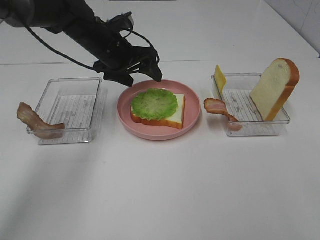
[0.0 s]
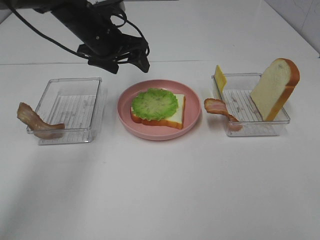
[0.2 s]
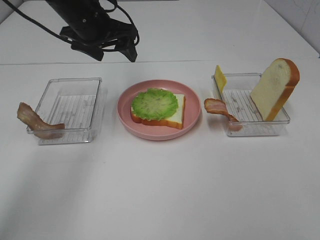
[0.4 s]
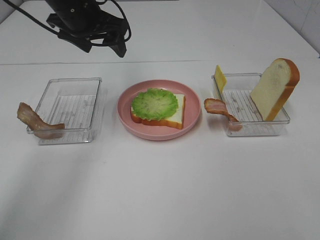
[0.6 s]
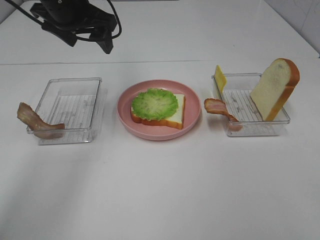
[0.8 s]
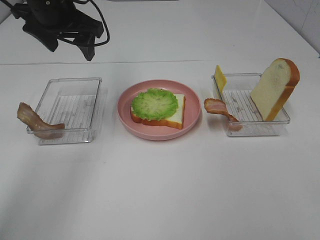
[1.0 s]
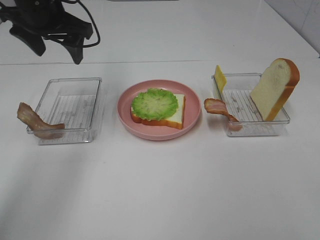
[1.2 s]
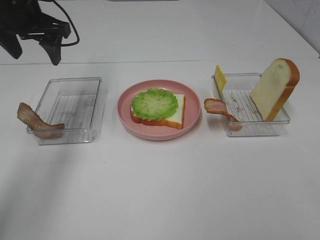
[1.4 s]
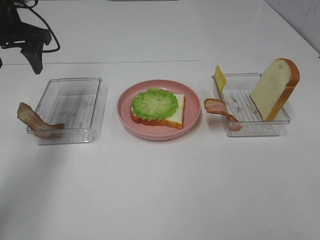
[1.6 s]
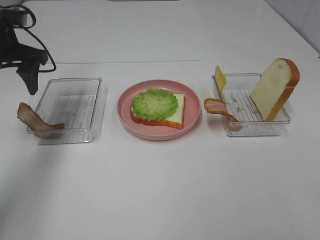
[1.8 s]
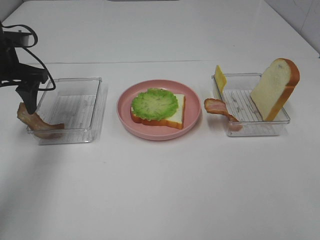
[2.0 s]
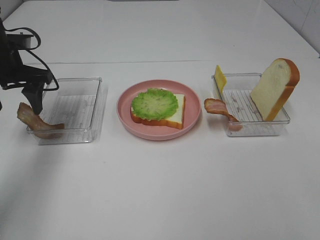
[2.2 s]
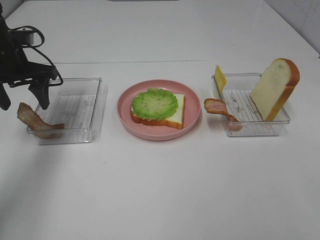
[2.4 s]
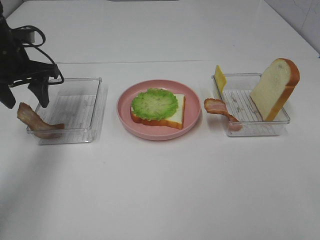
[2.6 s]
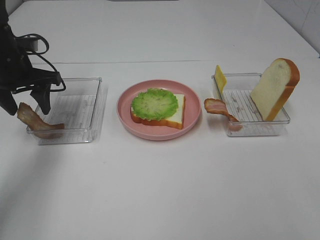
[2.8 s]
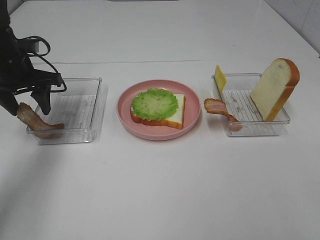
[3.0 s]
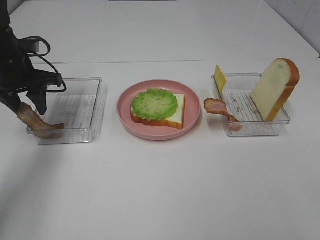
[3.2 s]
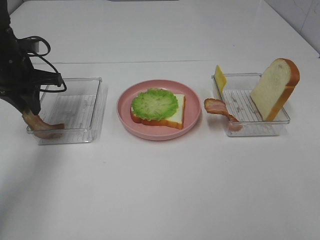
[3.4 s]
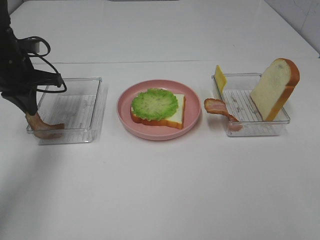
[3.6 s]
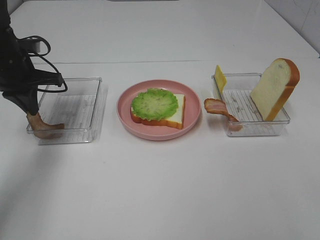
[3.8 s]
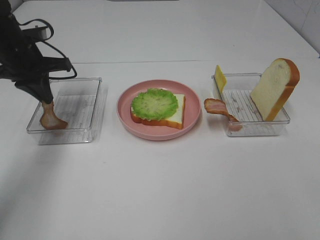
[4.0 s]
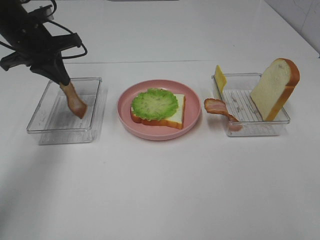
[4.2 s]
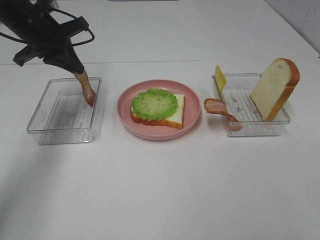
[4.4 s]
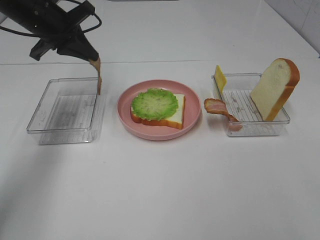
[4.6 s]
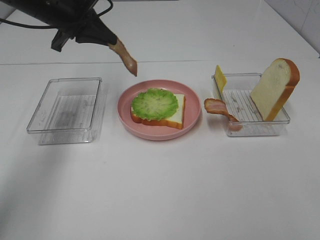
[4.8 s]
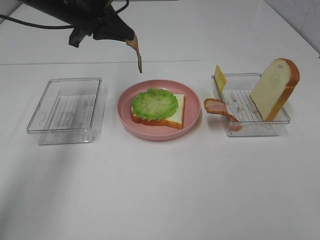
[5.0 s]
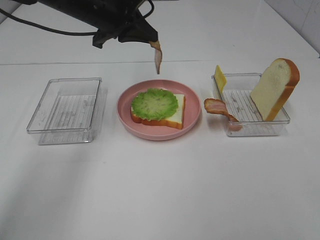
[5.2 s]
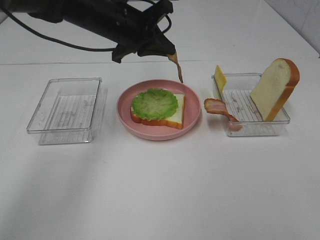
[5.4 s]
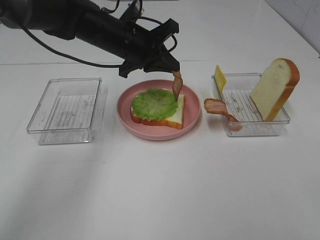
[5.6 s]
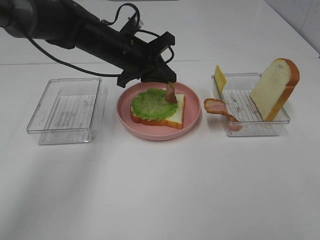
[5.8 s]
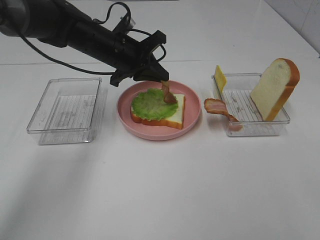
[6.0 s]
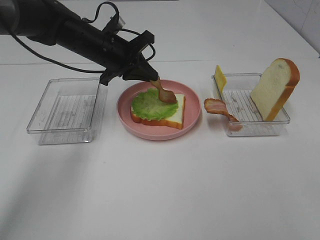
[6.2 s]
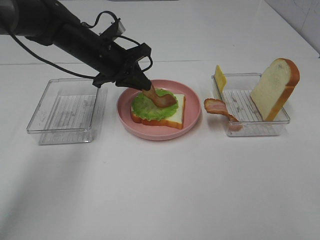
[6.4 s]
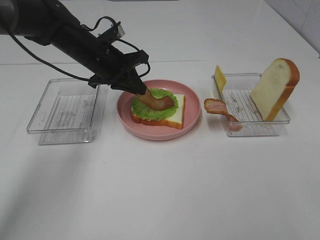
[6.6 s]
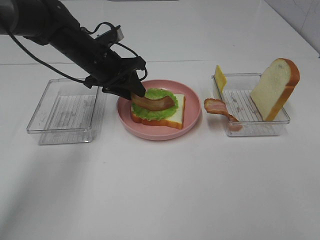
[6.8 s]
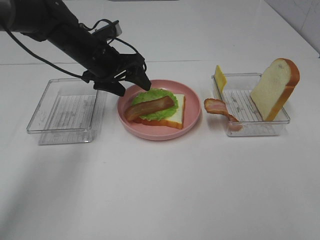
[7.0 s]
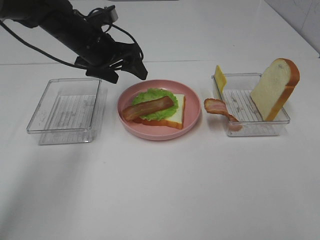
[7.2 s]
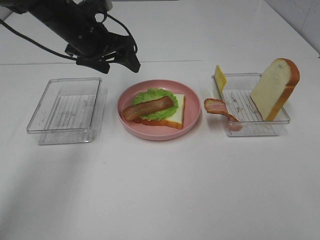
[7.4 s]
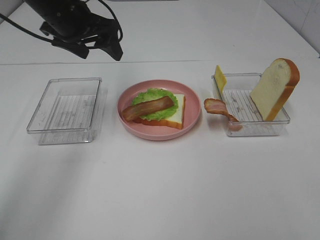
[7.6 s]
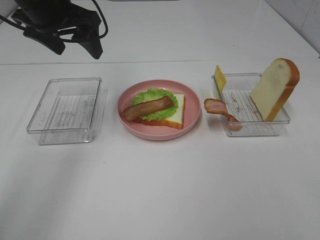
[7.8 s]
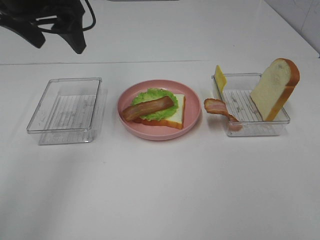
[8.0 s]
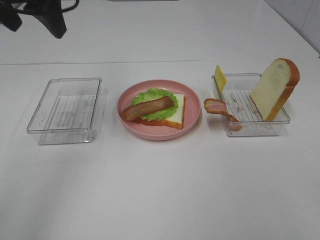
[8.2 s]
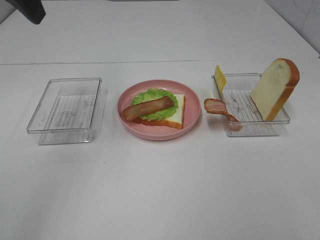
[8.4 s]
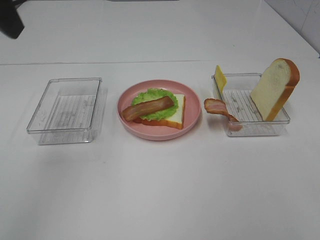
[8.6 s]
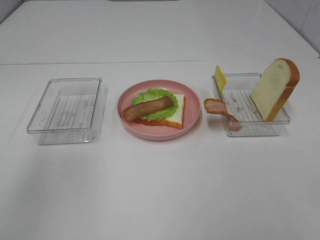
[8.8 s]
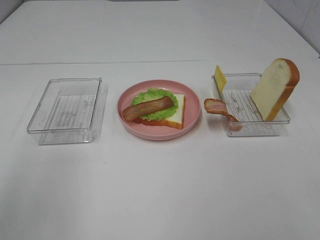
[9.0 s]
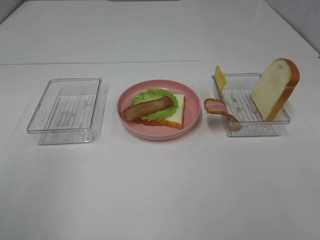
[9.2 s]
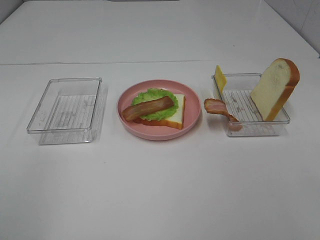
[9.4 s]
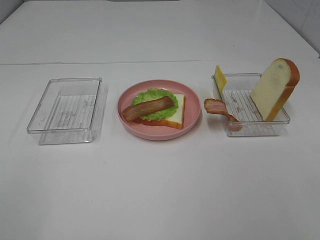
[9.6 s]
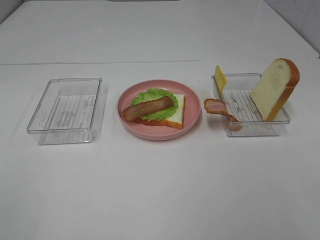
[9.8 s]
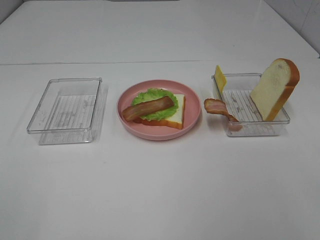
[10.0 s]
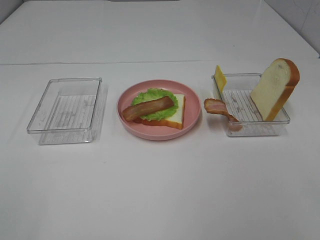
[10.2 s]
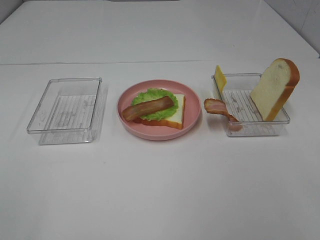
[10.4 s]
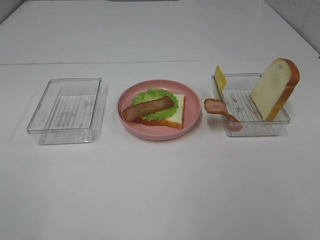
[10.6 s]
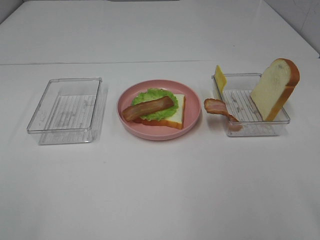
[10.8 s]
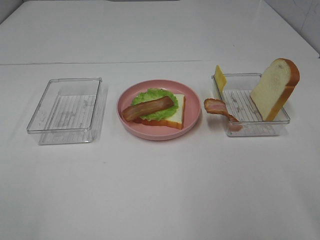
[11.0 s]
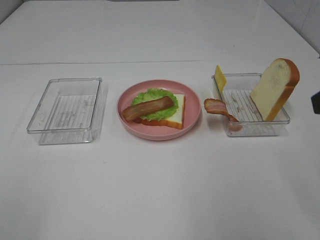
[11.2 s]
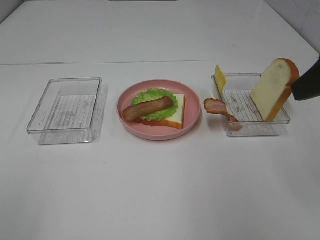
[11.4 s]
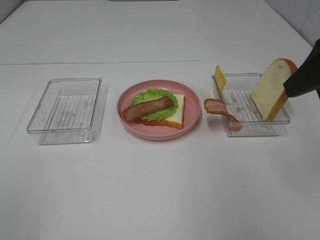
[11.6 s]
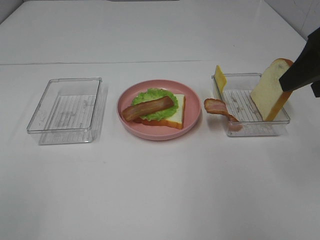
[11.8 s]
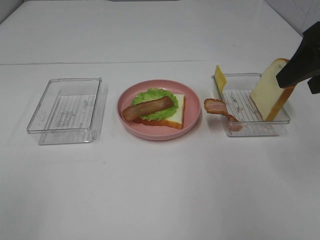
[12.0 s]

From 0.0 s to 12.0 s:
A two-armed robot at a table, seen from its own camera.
Task of the whole recording: Make sandwiches.
Step, from 0.2 s to 3.8 s: Left hand:grab the bacon.
Step, from 4.0 s to 7.0 s: Left hand:place bacon on lettuce slice.
From 0.0 s to 1.6 s: The left gripper moves to the left and upward, some 15 cm.
From 1.6 s to 3.0 s: The left gripper goes approximately 10 cm downward.
From 3.0 s to 4.4 s: The left gripper heads upward, covering approximately 5 cm, and closes up.
From 4.4 s to 6.0 s: The left gripper shifts roughly 15 cm to the right and downward.
From 6.0 s to 7.6 s: The left gripper is displaced upward and to the left by roughly 10 cm, and opens.
From 7.6 s to 9.0 s: The left gripper heads backward, covering some 25 cm.
From 10.4 s to 12.0 s: The right gripper heads forward, covering approximately 25 cm.

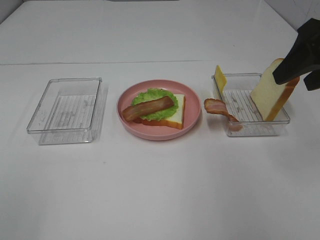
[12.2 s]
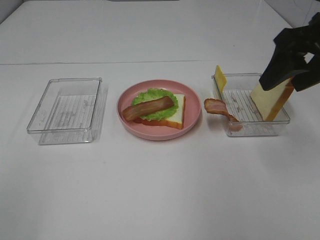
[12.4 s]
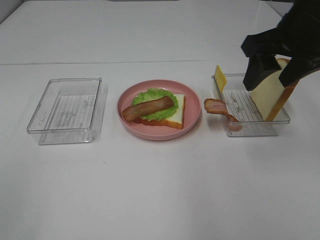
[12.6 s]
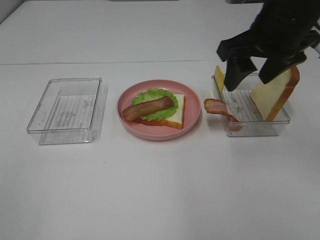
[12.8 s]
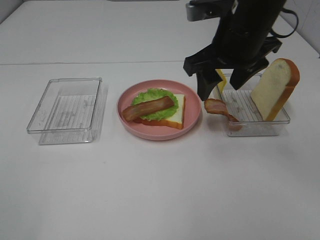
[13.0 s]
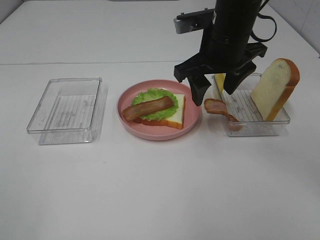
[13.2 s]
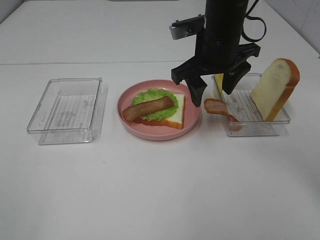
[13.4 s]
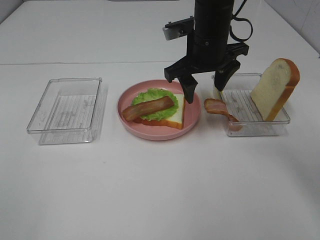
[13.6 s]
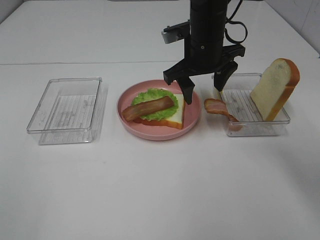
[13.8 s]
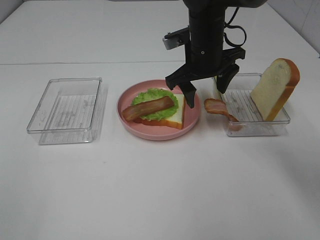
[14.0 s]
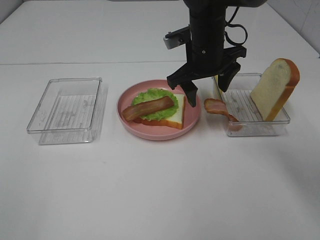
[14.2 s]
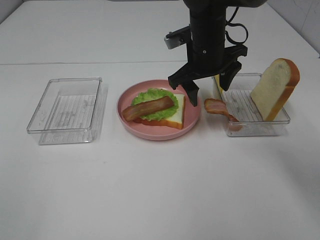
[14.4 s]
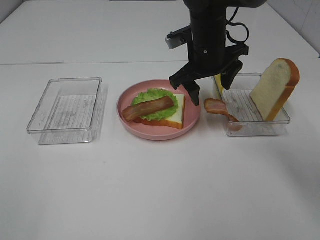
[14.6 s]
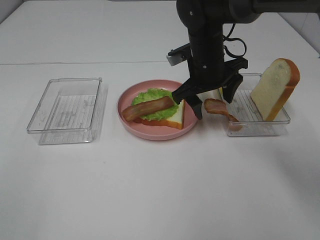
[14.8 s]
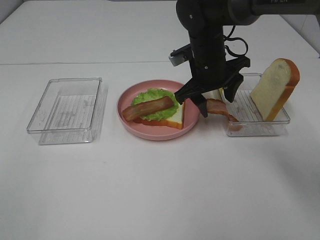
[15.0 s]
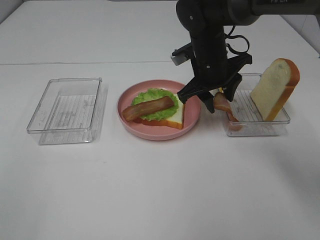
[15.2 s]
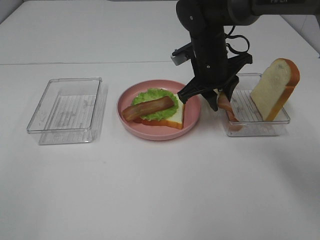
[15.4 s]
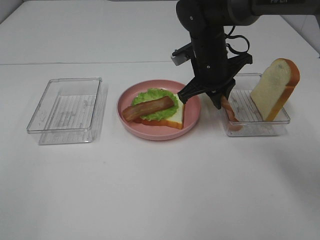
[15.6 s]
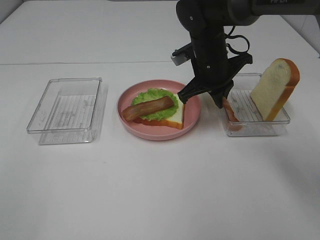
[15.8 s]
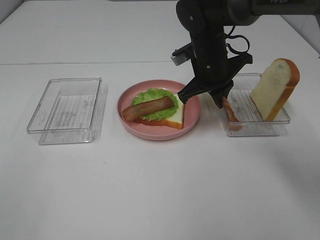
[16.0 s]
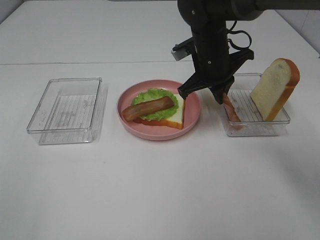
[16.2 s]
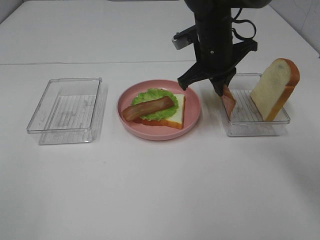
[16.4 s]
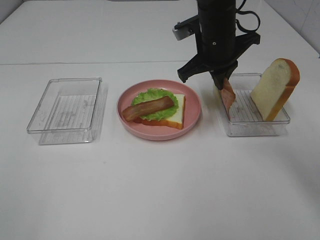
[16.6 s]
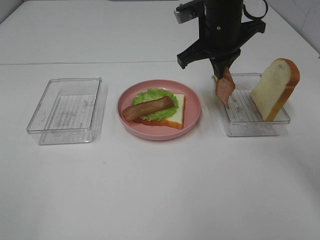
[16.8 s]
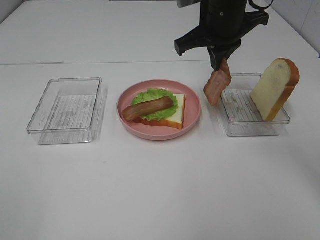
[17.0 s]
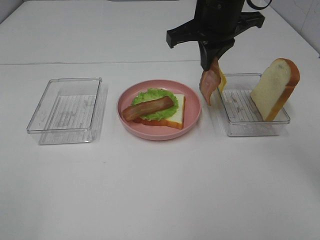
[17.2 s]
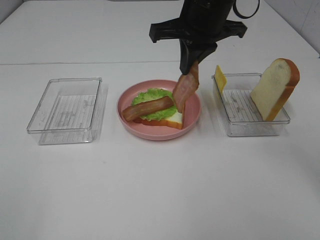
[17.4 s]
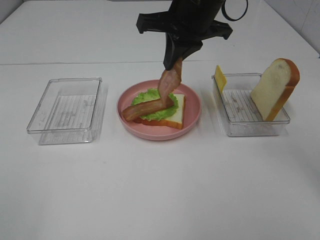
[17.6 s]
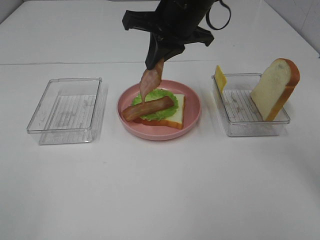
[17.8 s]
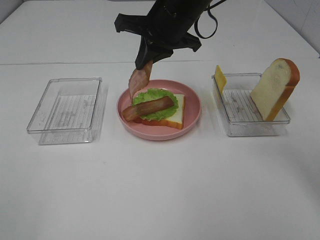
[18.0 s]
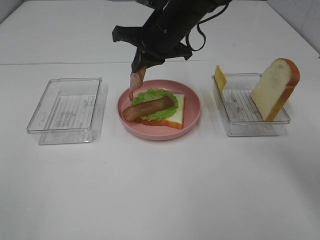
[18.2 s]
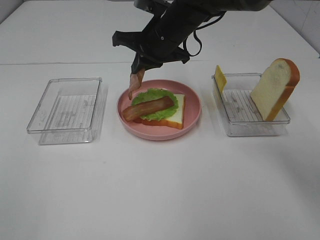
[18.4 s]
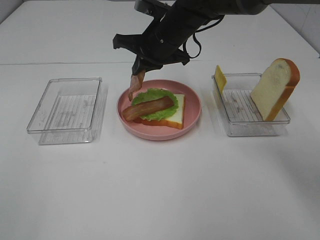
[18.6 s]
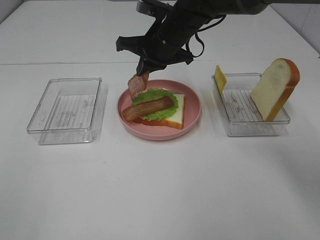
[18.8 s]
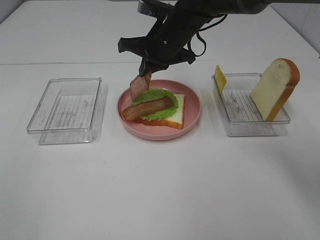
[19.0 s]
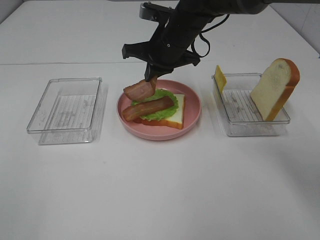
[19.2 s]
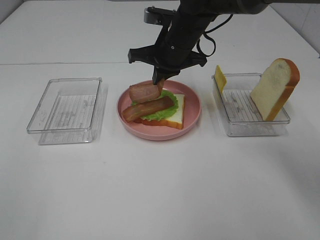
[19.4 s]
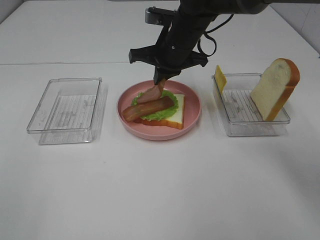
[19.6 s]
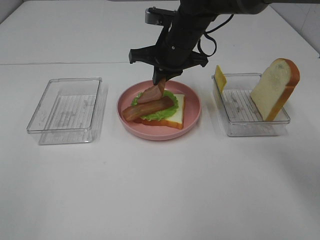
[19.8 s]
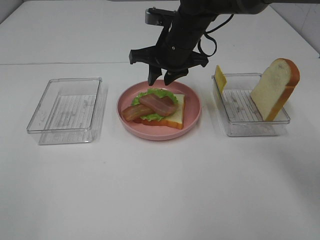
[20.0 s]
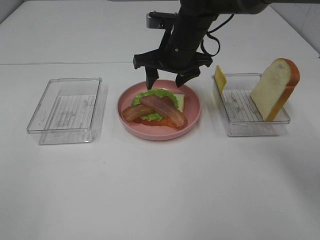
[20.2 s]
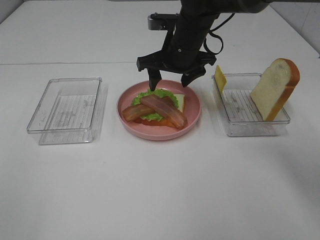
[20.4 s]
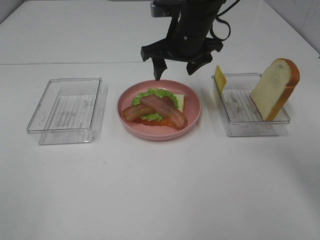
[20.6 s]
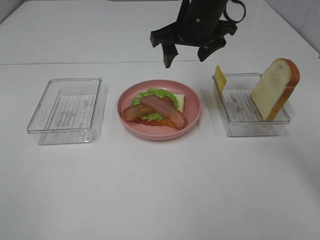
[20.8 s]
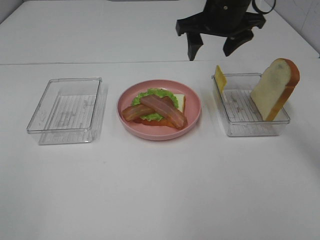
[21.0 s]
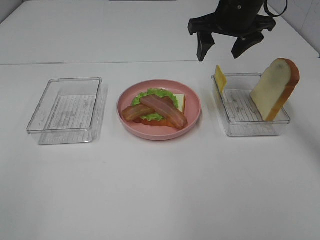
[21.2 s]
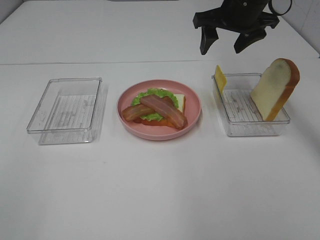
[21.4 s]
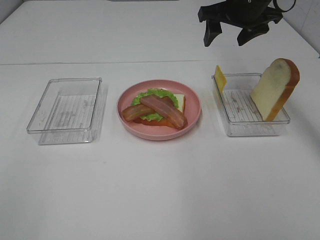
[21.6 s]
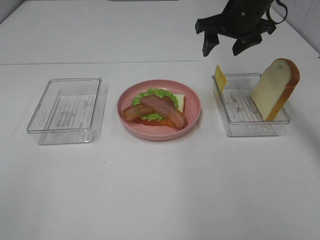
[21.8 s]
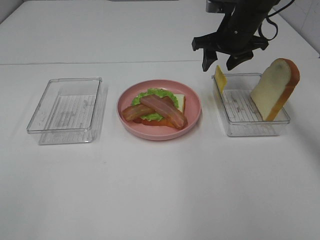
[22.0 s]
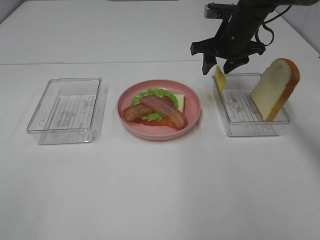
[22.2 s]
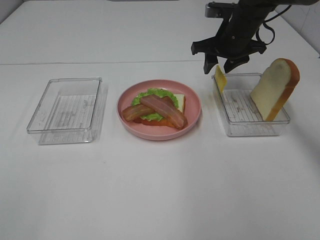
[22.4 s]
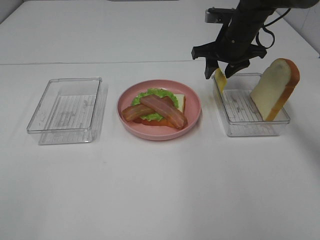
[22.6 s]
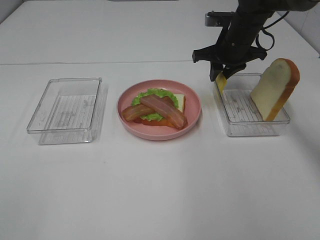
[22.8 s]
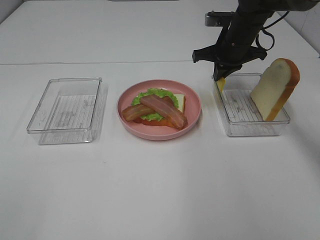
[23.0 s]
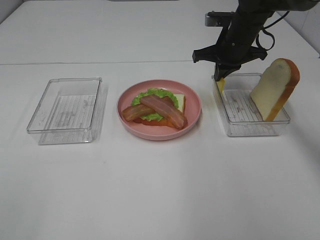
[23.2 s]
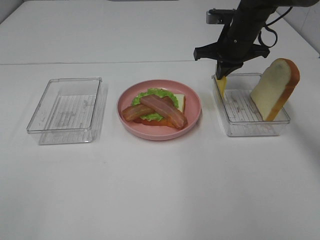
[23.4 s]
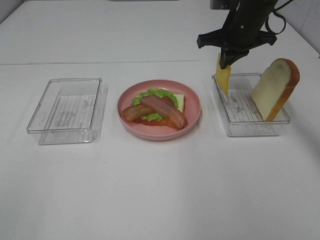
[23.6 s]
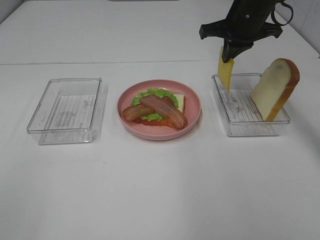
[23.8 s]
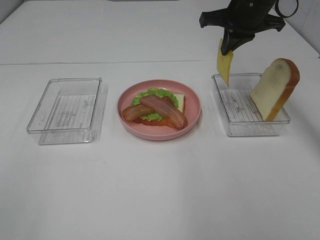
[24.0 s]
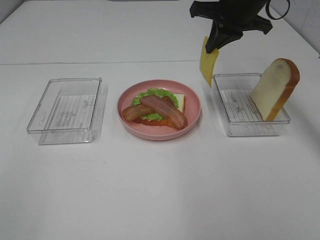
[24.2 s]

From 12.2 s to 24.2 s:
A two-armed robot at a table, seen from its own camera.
Task of the whole recording: Make sandwiches.
Step, from 12.2 s to 16.4 s: Right hand:grab the bacon.
Step, from 16.6 s to 20.2 s: Right hand:place bacon on bacon.
Step, from 20.4 s to 23.4 s: Right hand:grab the cheese slice.
From 12.2 s to 13.8 s: The right gripper goes about 25 cm to the left, forward and downward.
From 13.8 s to 15.2 s: The grippers make only small movements.
From 15.2 s to 16.6 s: The right gripper is displaced upward by some 5 cm, and closes up.
From 16.6 s to 18.2 s: The right gripper is displaced to the left by roughly 5 cm.
From 18.2 s to 19.8 s: The grippers stay close to where they were, moving slightly.
From 19.8 s to 21.2 s: The right gripper is displaced to the right and upward by some 10 cm, and opens.
From 21.2 s to 22.6 s: The right gripper goes roughly 10 cm downward.
From 22.6 s to 24.2 s: The right gripper travels upward by some 10 cm, and closes up.
